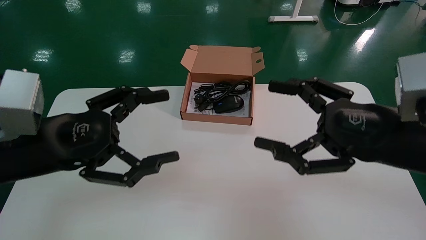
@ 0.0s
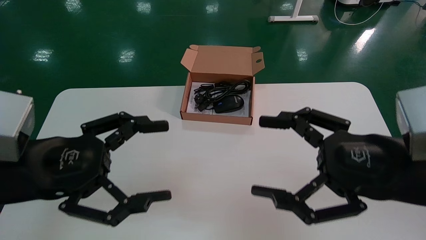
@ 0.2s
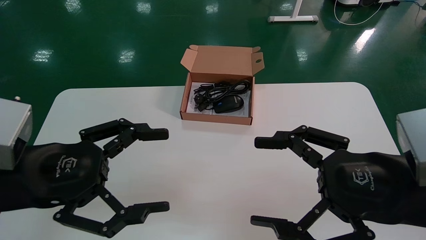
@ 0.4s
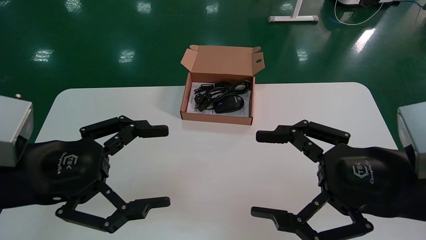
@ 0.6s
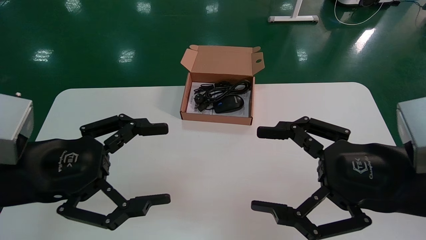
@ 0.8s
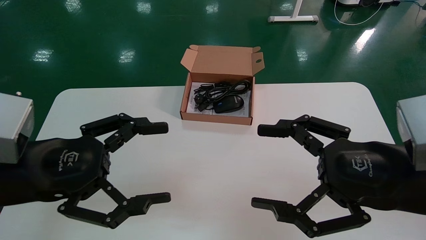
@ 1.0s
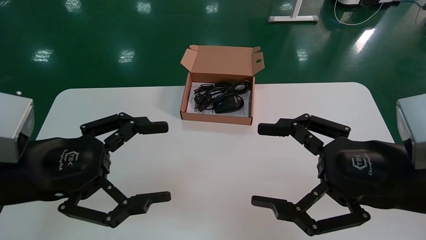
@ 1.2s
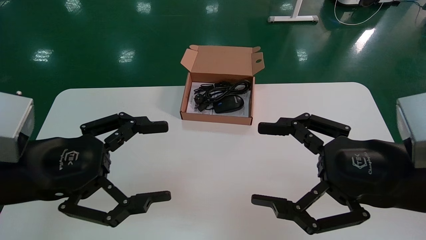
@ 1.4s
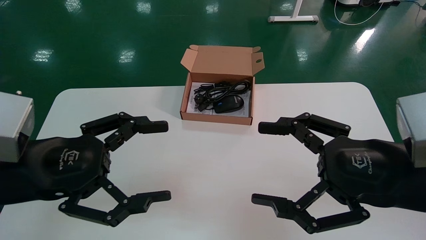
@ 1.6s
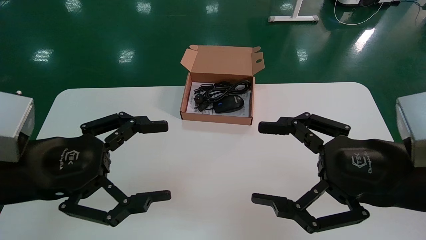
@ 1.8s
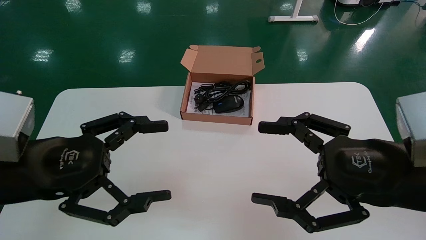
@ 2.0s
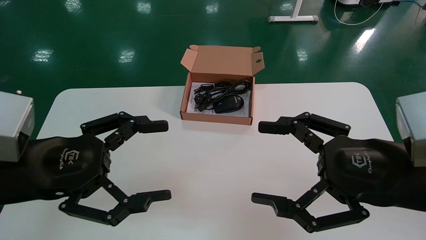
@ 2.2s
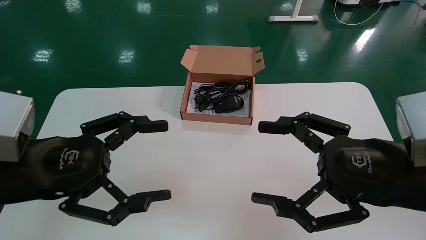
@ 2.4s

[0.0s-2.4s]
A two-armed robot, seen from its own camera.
1.2s to 2.4s: Both grippers stay put.
